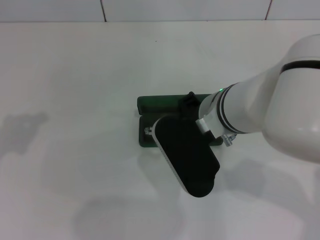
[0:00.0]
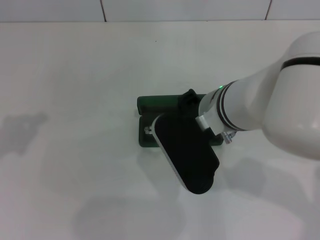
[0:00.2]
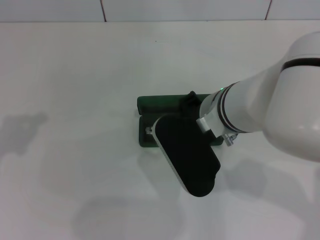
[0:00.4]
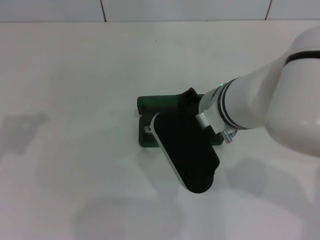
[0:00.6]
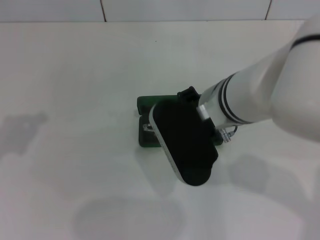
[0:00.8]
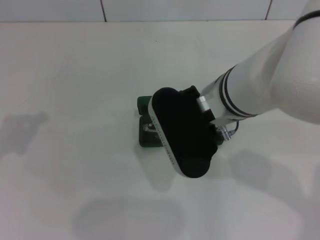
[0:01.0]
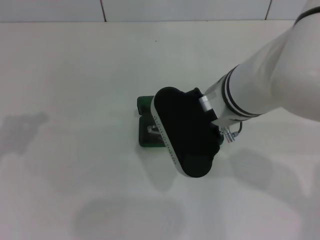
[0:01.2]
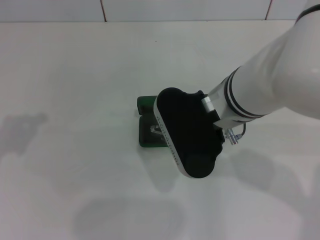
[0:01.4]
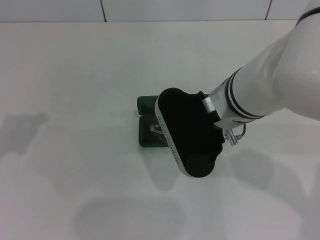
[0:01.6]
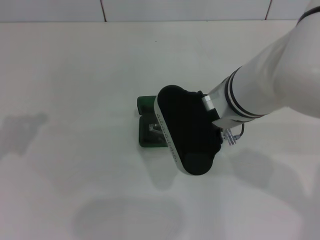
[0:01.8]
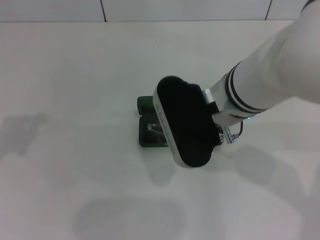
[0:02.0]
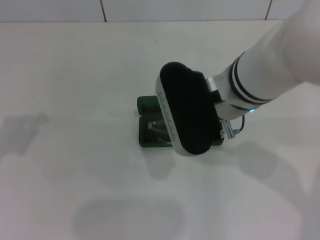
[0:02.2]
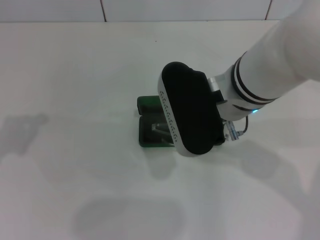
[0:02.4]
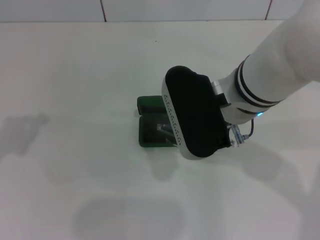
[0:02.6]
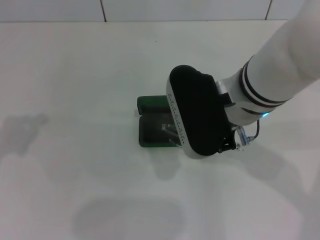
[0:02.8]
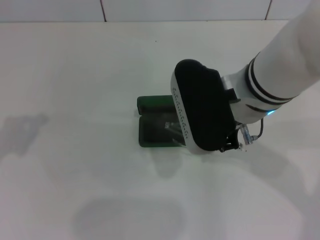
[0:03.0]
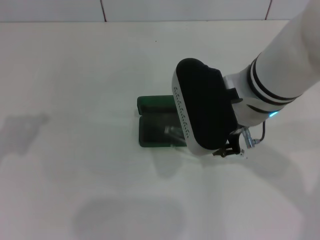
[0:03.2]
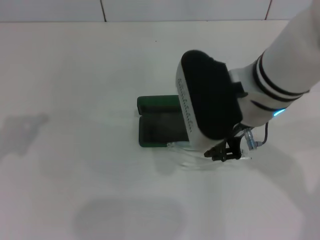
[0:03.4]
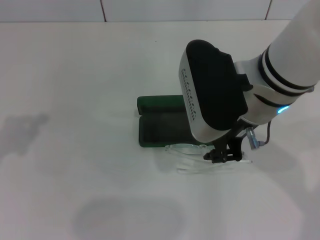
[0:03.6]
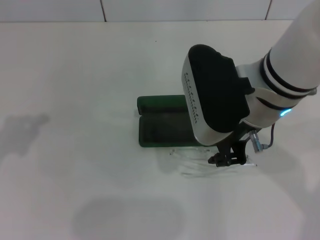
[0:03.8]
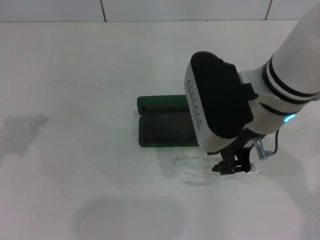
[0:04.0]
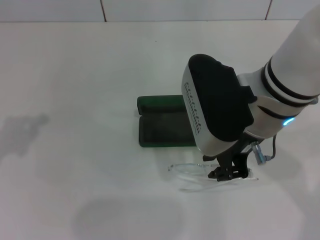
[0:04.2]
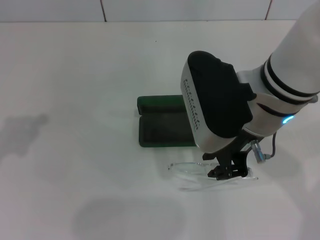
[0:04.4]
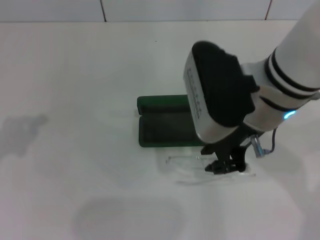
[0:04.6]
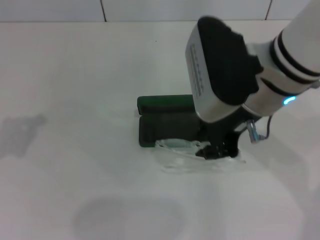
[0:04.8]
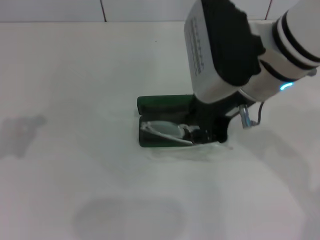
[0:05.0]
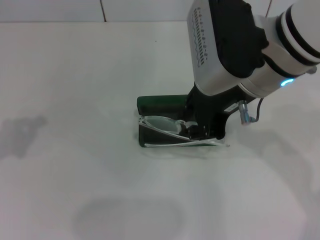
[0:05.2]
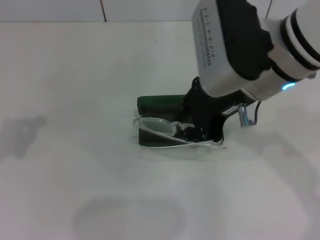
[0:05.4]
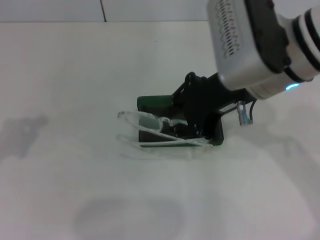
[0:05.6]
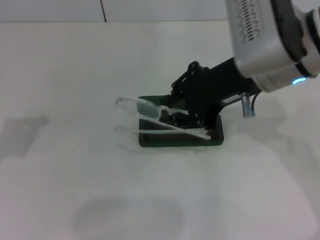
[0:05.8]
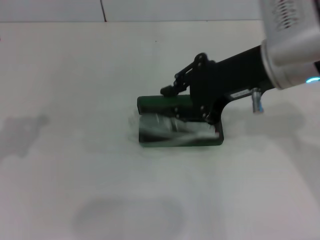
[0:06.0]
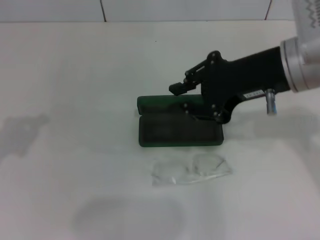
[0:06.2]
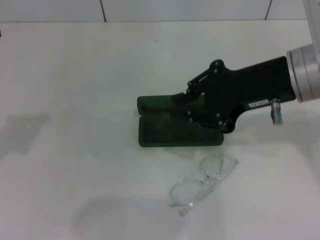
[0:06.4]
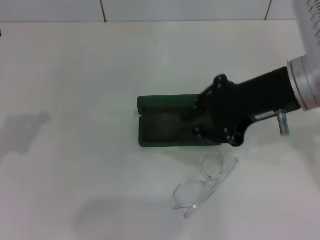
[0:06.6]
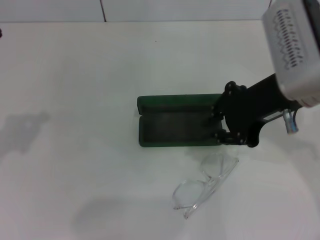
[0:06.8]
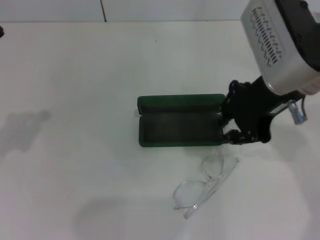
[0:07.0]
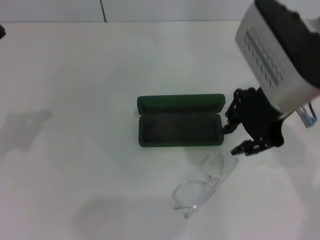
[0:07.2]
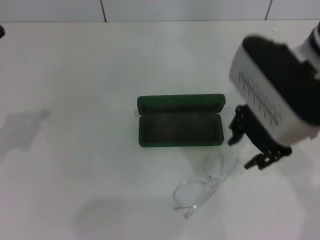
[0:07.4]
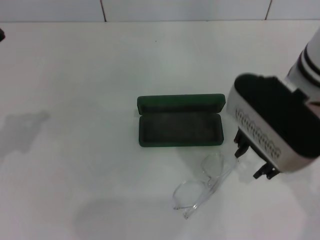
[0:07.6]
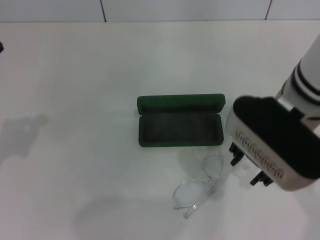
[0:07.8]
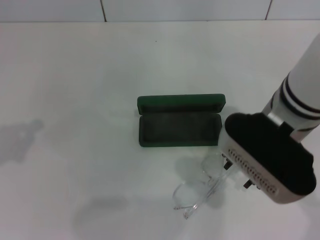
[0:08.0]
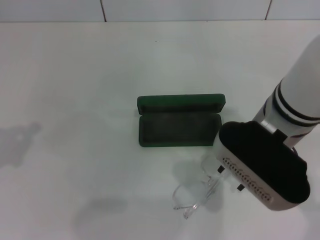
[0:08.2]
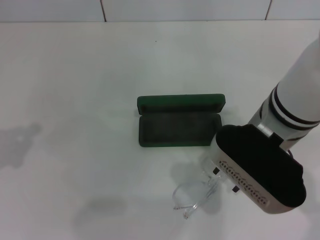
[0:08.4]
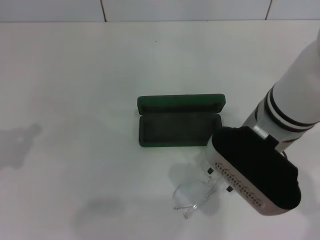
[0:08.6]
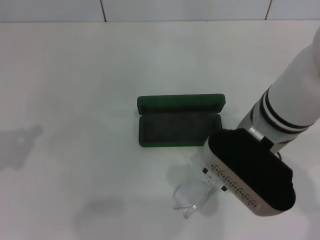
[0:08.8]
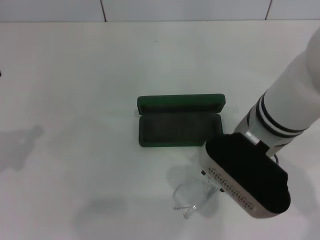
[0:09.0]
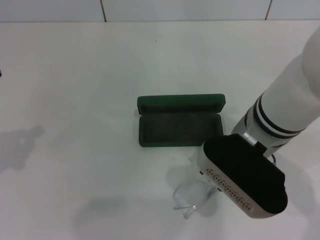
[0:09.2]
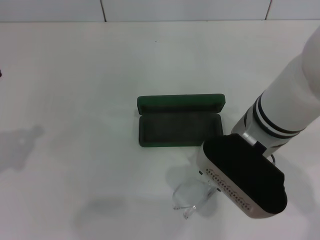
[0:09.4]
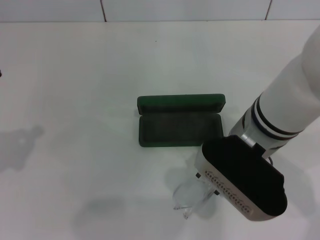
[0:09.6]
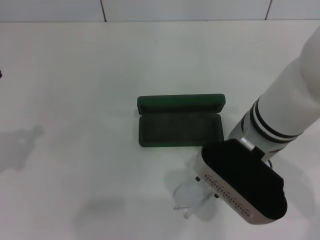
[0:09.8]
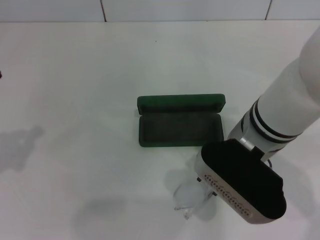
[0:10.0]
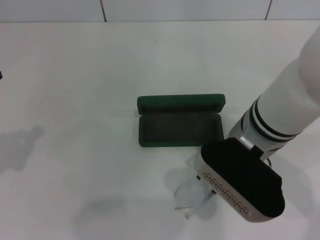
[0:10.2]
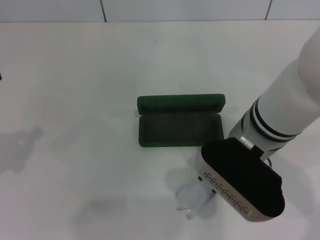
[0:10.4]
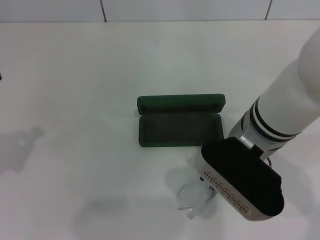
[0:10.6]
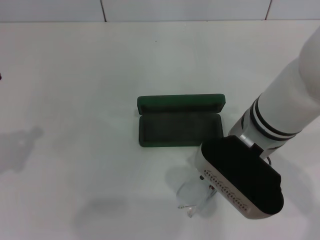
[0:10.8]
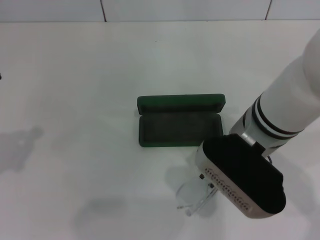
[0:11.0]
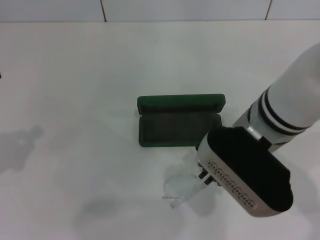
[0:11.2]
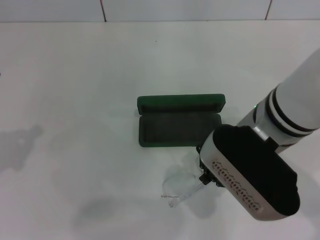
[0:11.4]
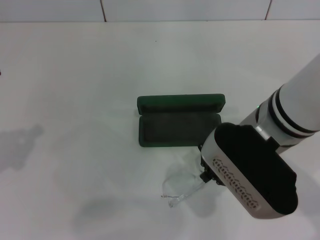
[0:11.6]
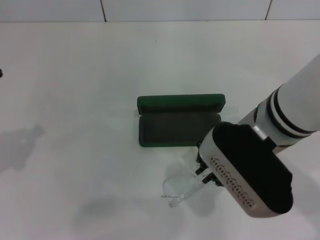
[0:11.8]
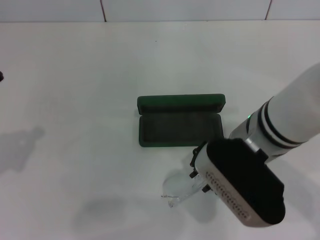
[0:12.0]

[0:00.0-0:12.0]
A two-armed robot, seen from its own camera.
0:00.0 to 0:01.6: The grippers stay close to where they were, moving slightly.
0:01.6 to 0:03.0: The grippers make only small movements.
0:03.0 to 0:04.4: There are only small adjustments of the grippers.
0:04.4 to 0:06.0: The right gripper ends up roughly 5 cm from where it was.
0:07.6 to 0:09.0: The right gripper is displaced downward by approximately 5 cm.
0:09.0 to 0:10.4: Neither gripper changes place.
0:10.4 to 0:12.0: The grippers make only small movements.

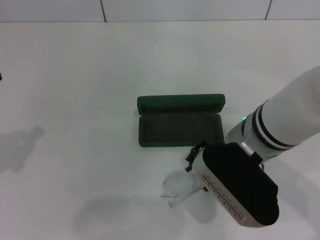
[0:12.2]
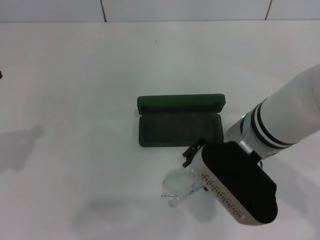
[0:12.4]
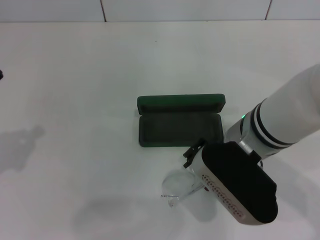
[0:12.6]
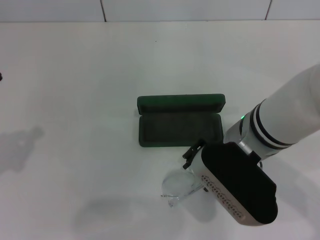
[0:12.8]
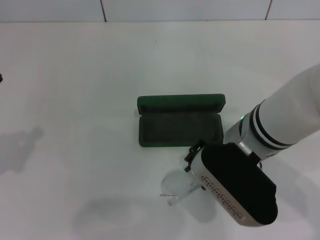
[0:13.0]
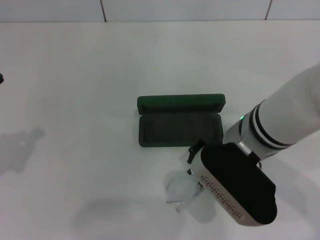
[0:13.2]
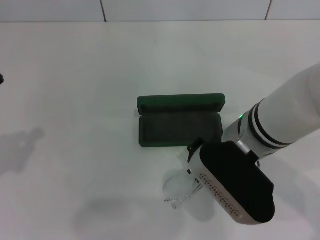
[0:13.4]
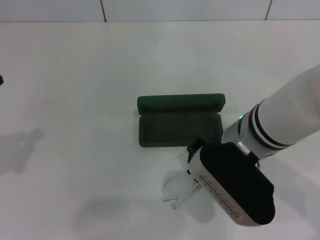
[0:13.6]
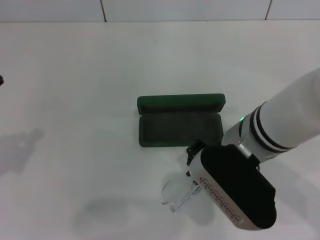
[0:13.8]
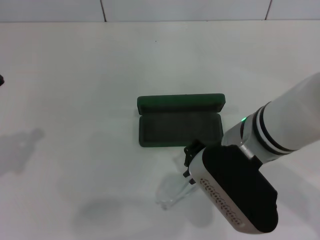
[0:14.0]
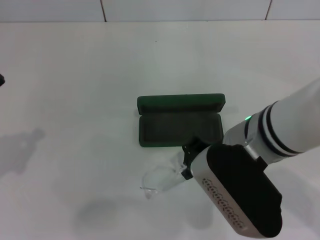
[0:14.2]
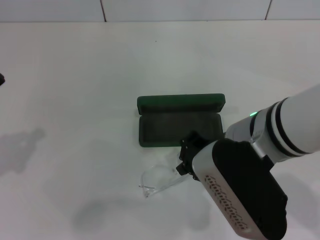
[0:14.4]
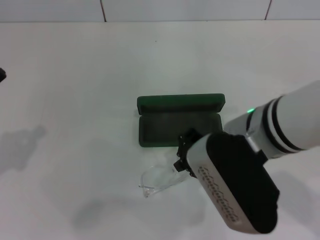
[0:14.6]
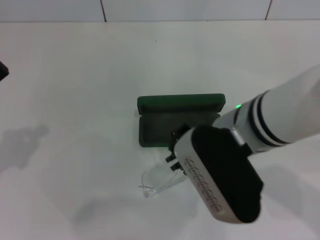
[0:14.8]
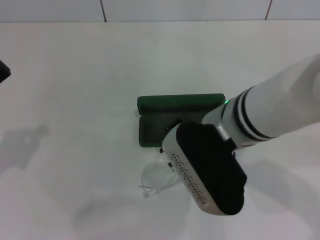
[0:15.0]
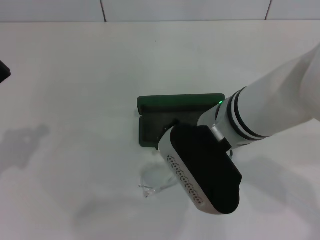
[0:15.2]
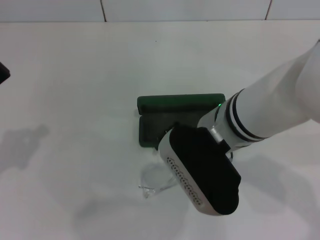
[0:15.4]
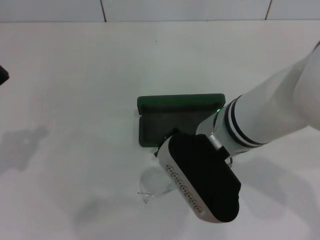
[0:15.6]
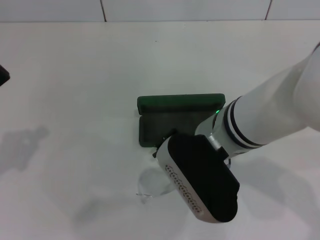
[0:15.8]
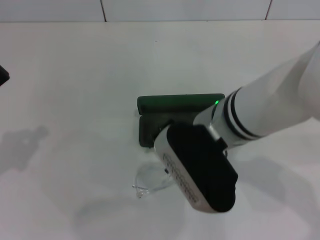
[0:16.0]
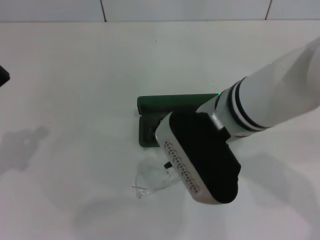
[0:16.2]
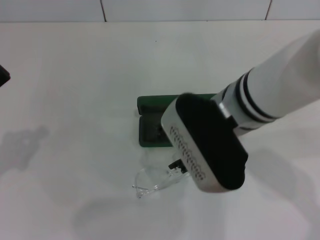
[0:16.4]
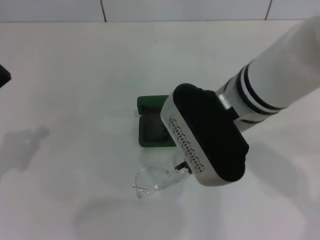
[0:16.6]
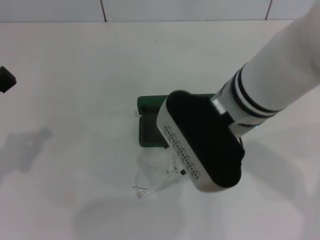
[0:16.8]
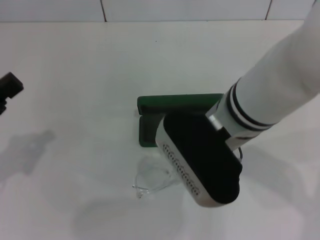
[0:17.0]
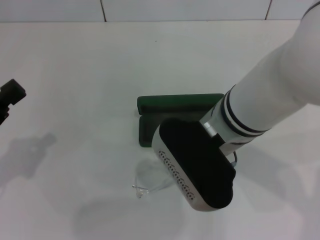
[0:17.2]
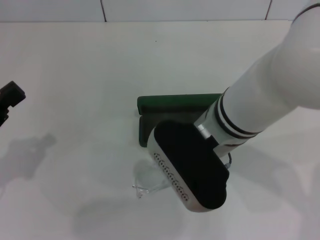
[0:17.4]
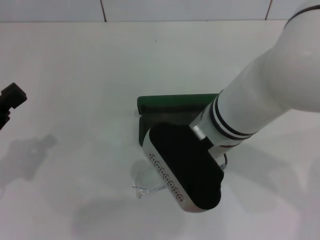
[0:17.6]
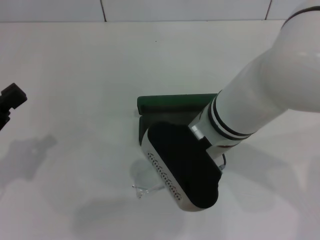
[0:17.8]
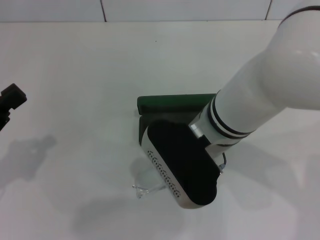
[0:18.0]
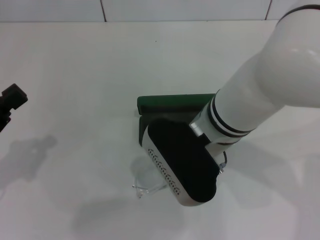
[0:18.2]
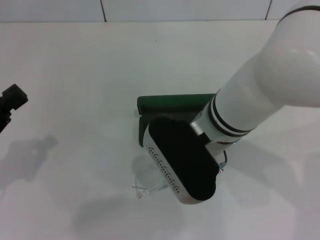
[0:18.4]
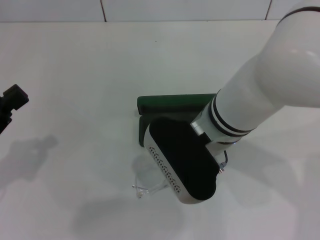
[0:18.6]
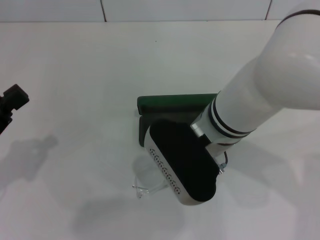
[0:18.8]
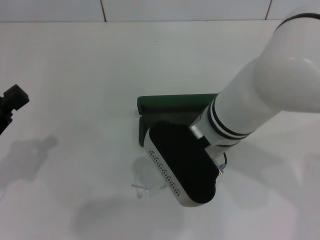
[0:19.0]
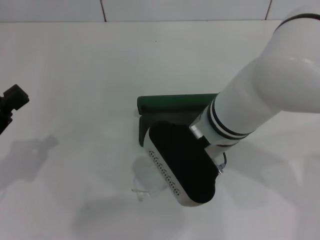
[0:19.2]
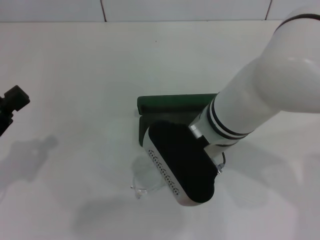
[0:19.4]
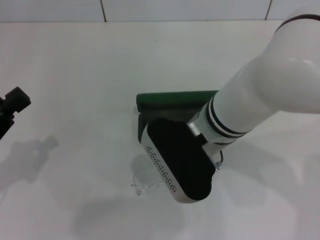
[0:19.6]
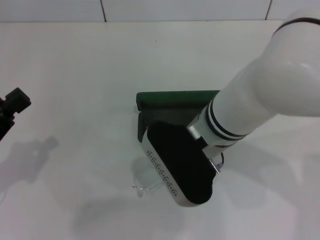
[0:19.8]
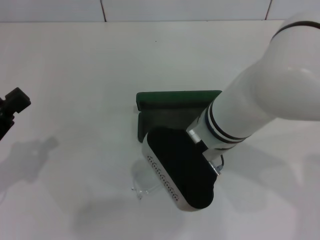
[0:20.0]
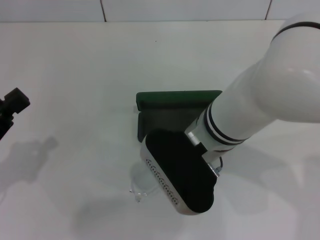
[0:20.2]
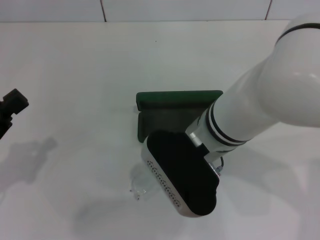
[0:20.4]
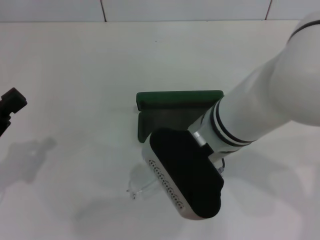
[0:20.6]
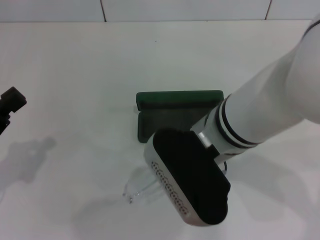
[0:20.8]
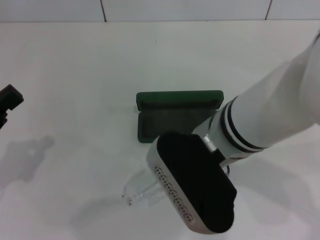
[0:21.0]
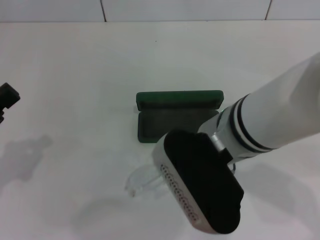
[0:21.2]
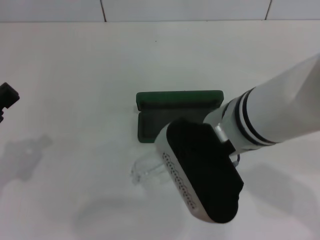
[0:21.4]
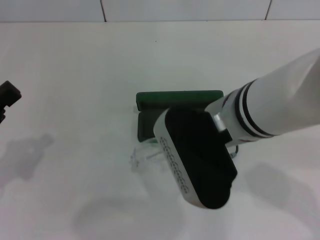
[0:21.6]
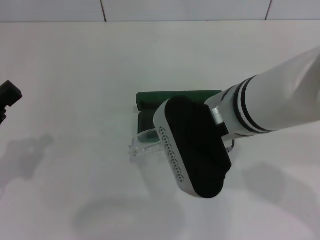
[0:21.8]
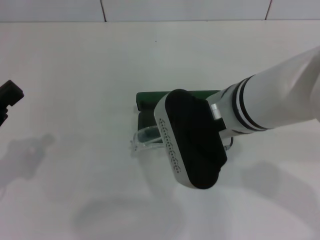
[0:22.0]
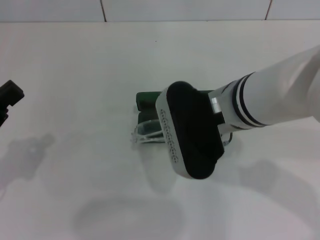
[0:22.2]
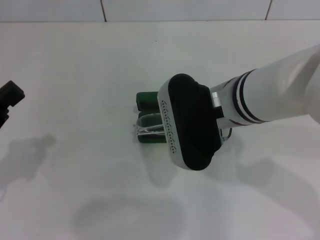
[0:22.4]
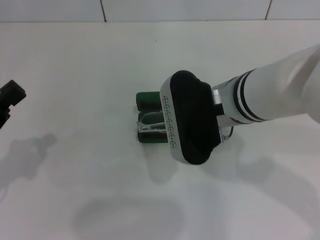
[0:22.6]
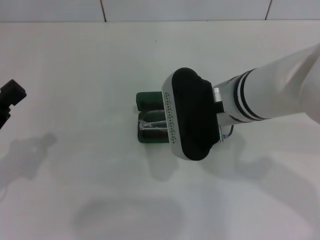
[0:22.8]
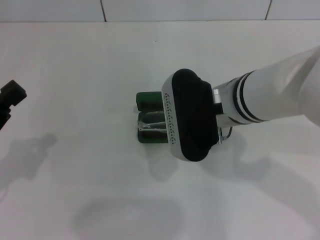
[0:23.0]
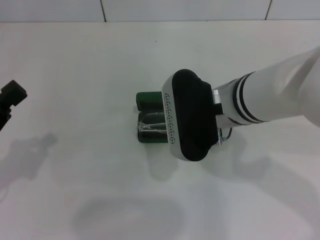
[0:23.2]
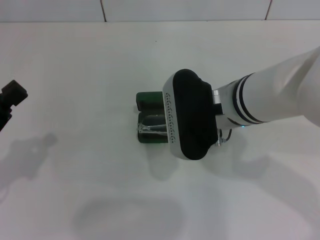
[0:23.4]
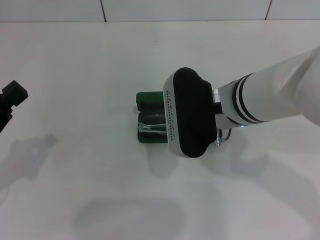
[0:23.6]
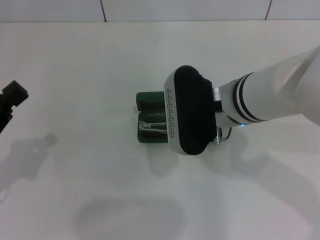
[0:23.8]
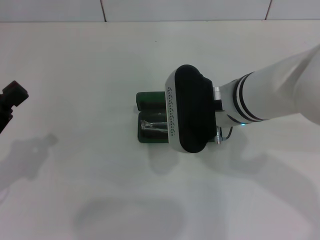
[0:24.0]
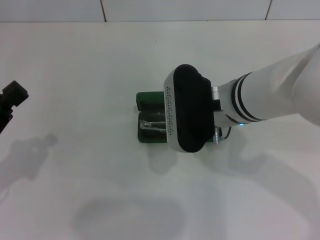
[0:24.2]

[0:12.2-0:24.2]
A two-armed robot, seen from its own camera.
0:12.2 to 0:13.8: The right gripper opens and closes again.
0:13.8 to 0:15.2: The grippers make only small movements.
0:15.2 to 0:16.6: The right gripper opens.
0:16.6 to 0:18.2: There are only small adjustments of the grippers.
0:18.2 to 0:19.8: The right gripper closes up.
0:19.8 to 0:21.2: The right gripper shifts by about 5 cm.
0:21.2 to 0:22.6: The right gripper shifts by some 5 cm.
0:22.6 to 0:24.2: The grippers move only a little.
